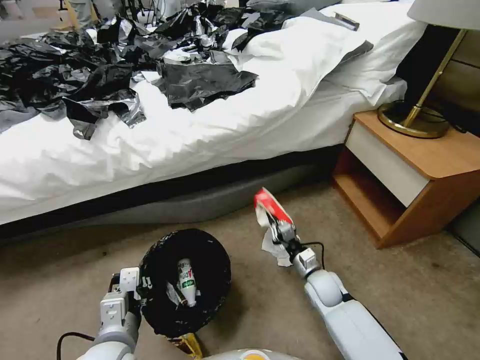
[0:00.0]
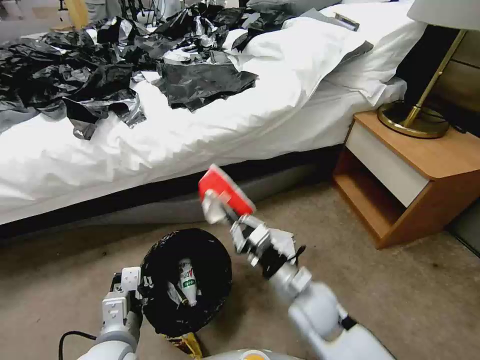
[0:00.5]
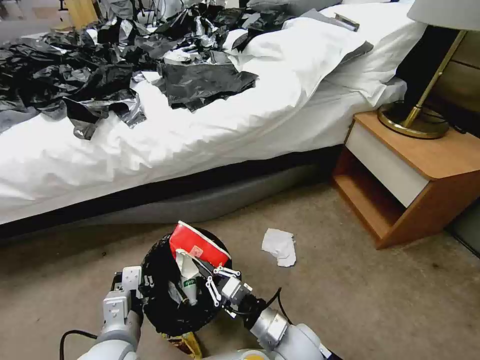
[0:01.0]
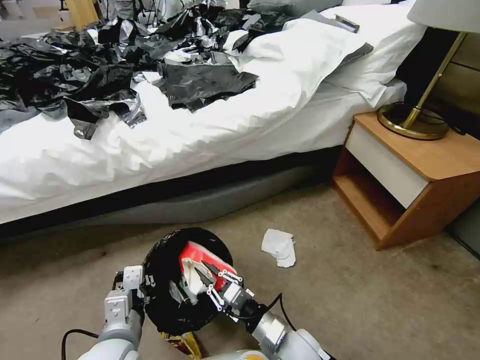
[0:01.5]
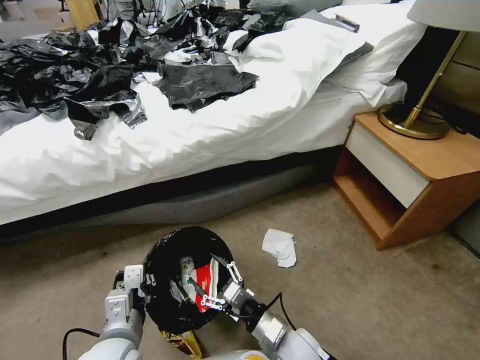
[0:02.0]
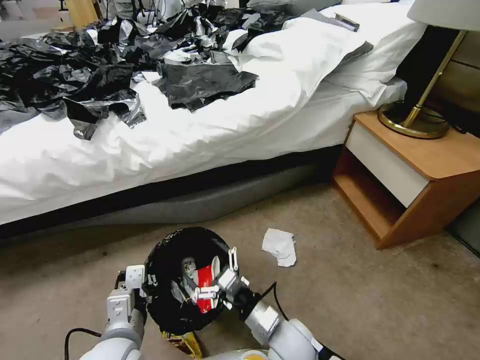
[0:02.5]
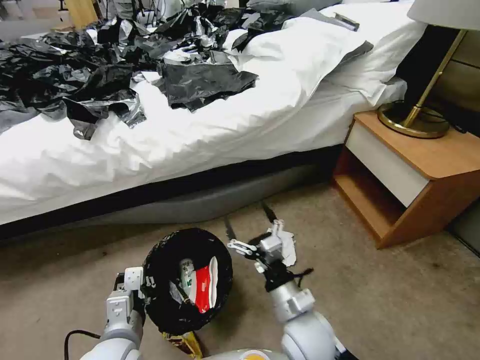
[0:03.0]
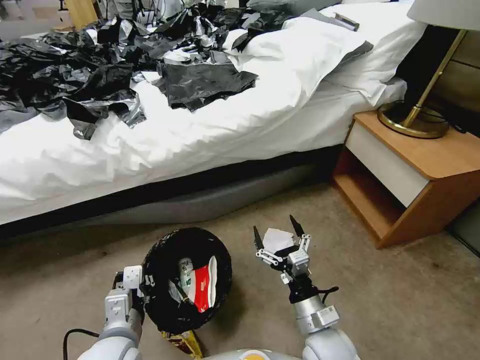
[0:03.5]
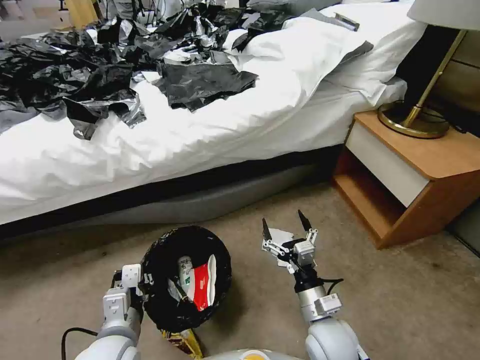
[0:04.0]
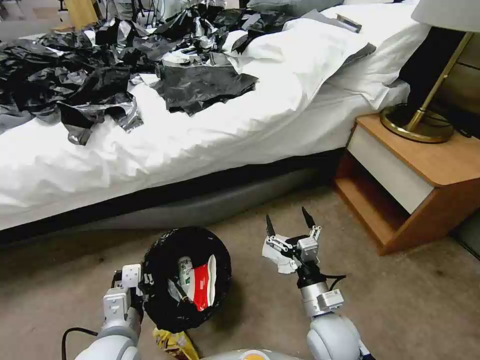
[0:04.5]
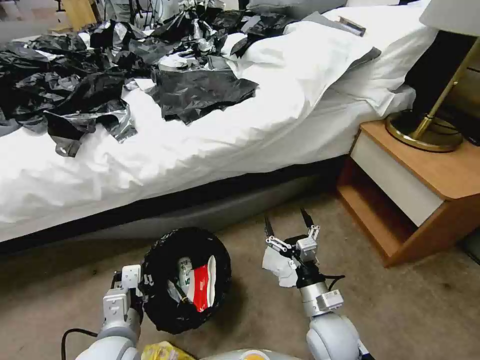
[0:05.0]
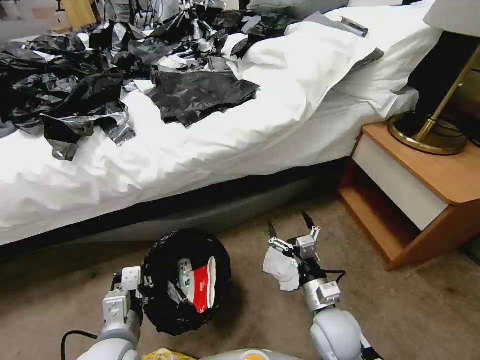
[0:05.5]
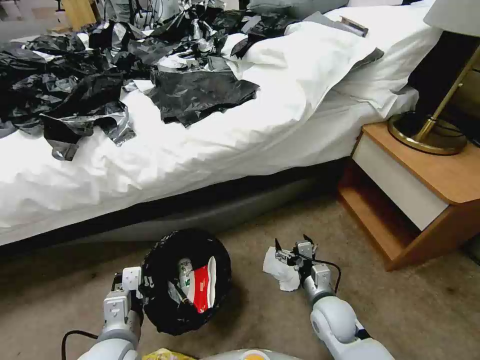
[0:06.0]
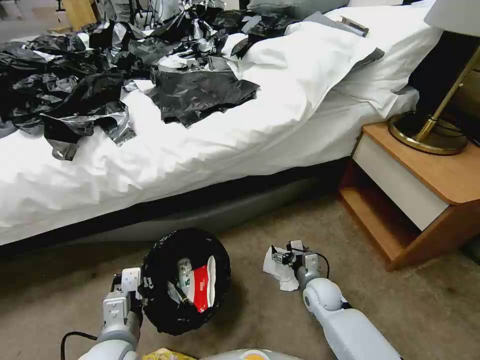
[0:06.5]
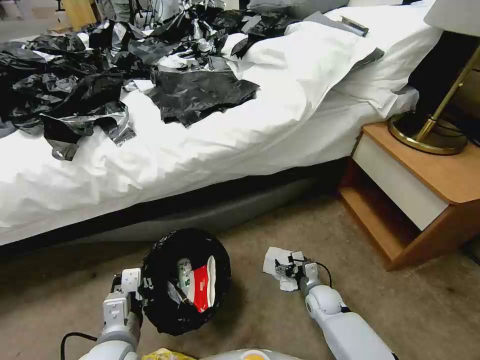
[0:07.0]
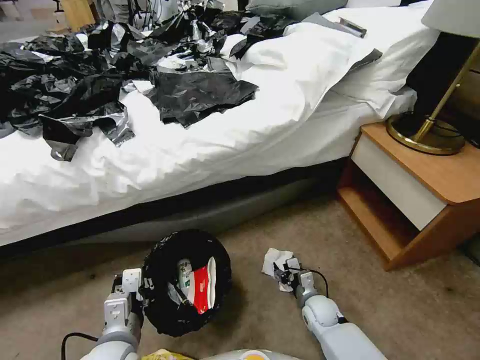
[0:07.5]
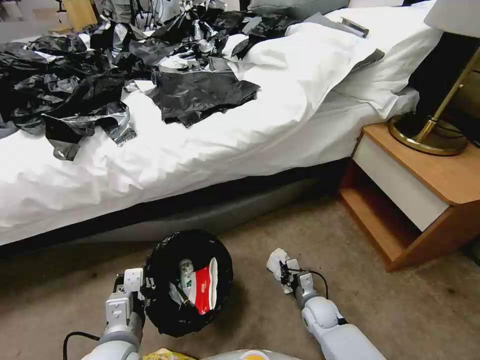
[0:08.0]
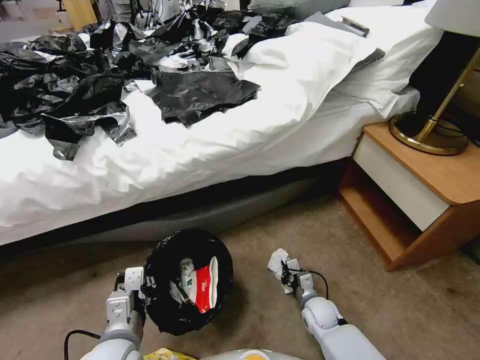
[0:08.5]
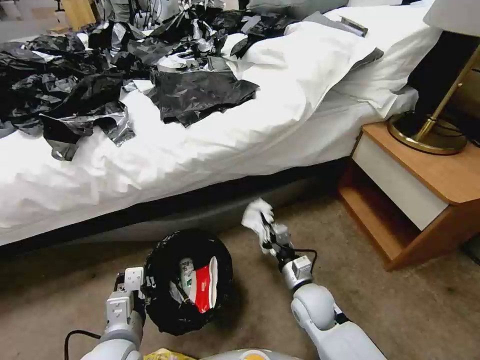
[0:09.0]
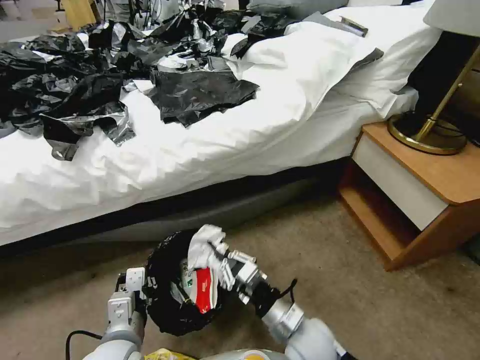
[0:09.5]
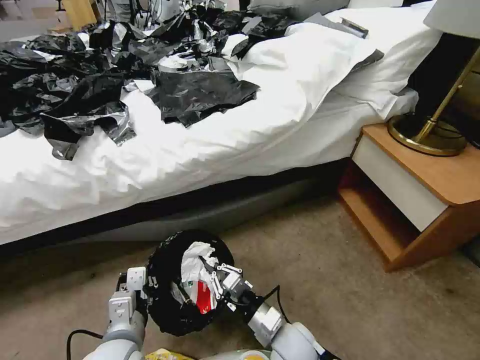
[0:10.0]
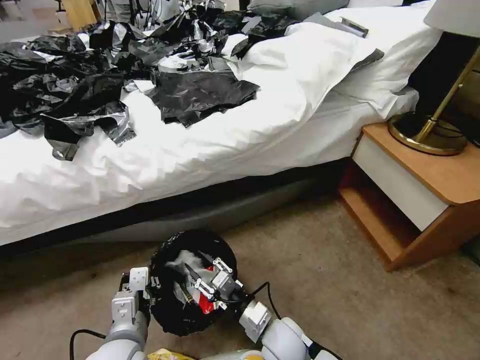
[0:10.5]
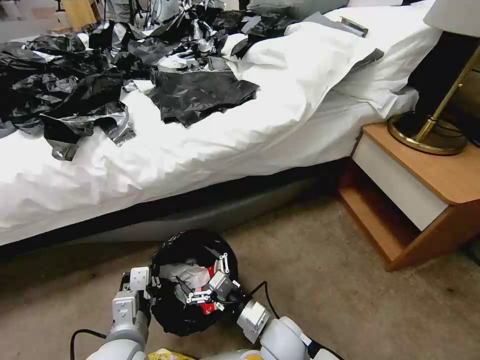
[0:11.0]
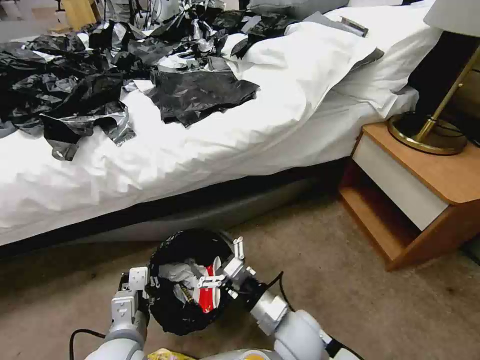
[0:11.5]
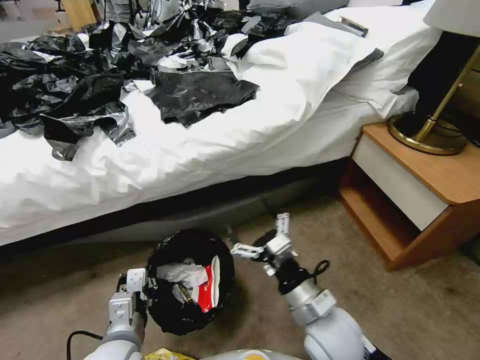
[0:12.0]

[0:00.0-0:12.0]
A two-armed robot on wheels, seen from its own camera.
Task of the whole recording: Pick up the trash bin, then pick up the garbage from the floor and place it into the trash bin.
0:00.0 to 0:02.0: The right gripper heads backward and to the left, covering roughly 20 cm, and opens.
0:02.0 to 0:04.0: The right gripper is displaced to the right by approximately 5 cm.
0:04.0 to 0:06.0: The right gripper travels downward and forward by some 10 cm.
0:06.0 to 0:08.0: The right gripper goes some 10 cm downward, and closes.
0:08.0 to 0:10.0: The right gripper goes some 20 cm upward, to the left and backward.
0:10.0 to 0:12.0: The right gripper shifts roughly 15 cm upward and to the right, and opens its fingers.

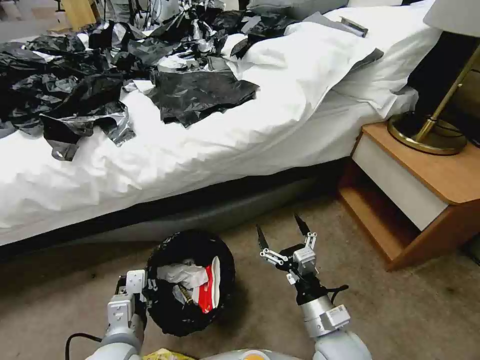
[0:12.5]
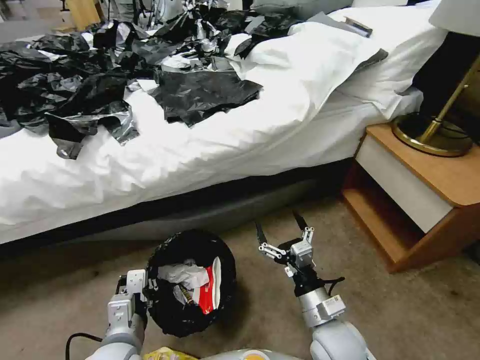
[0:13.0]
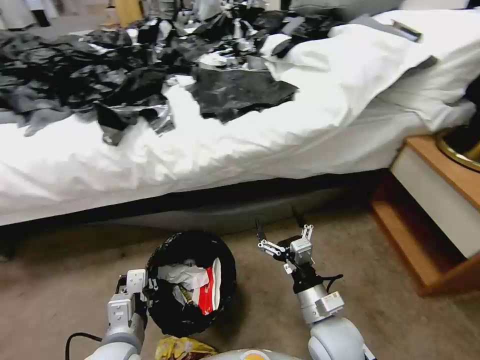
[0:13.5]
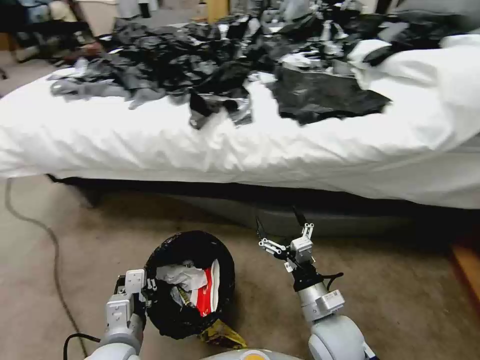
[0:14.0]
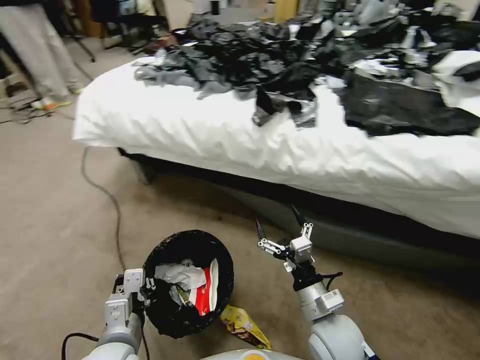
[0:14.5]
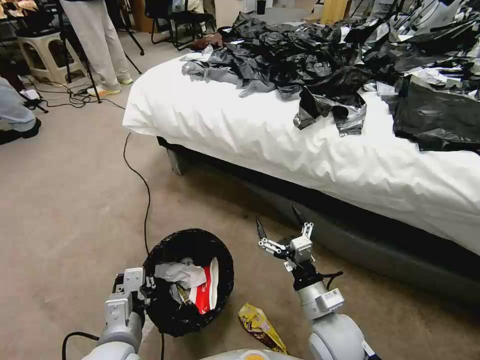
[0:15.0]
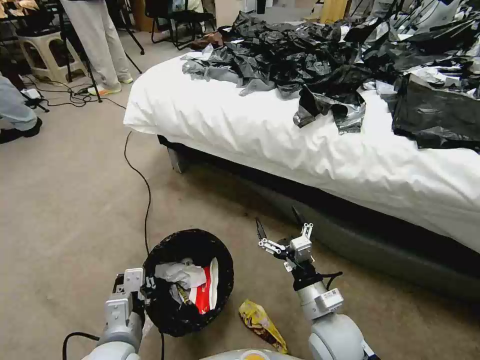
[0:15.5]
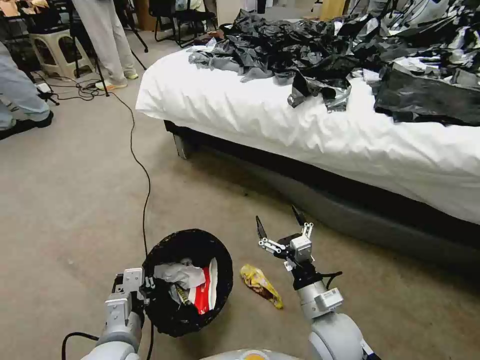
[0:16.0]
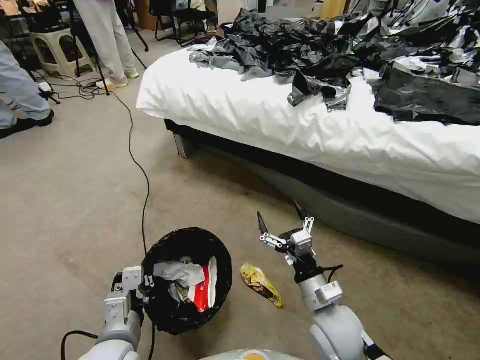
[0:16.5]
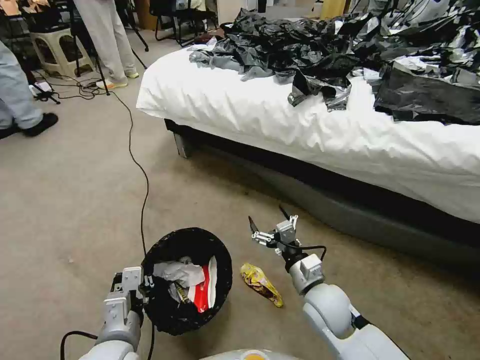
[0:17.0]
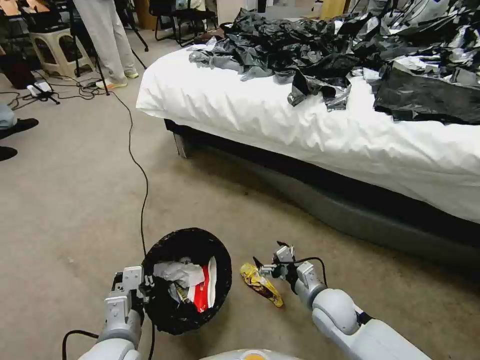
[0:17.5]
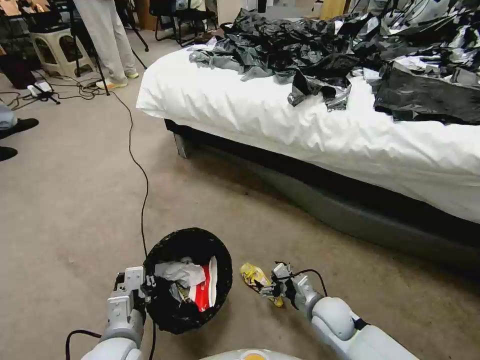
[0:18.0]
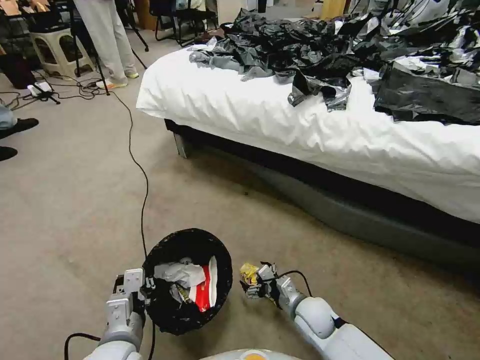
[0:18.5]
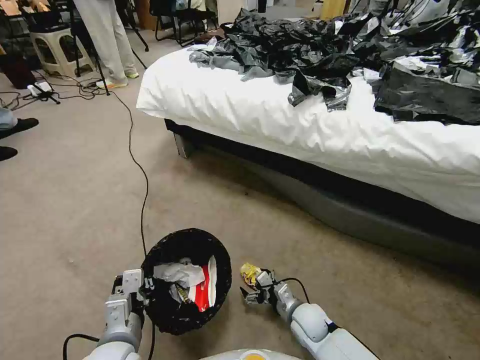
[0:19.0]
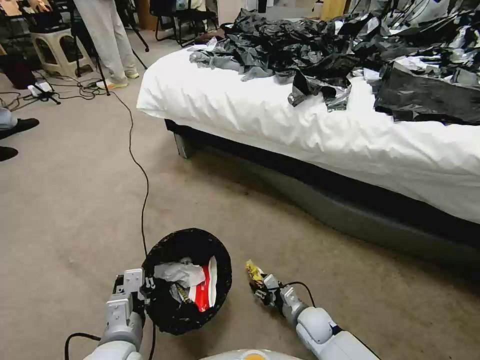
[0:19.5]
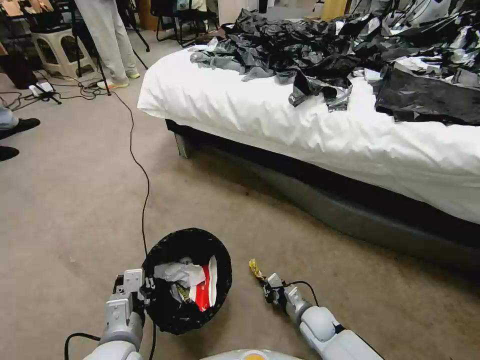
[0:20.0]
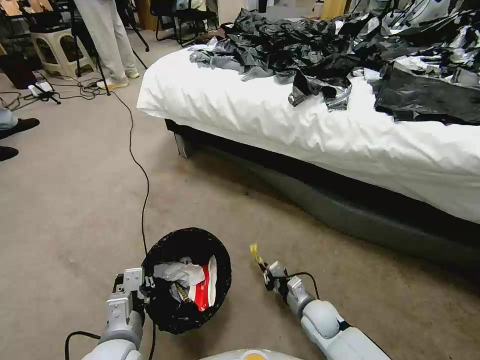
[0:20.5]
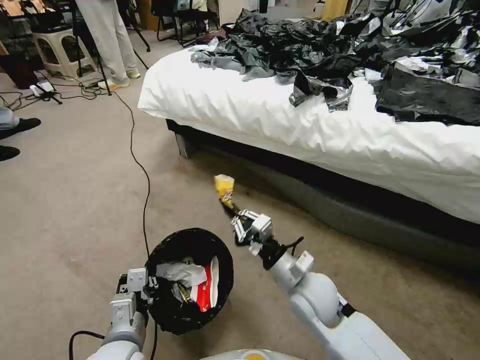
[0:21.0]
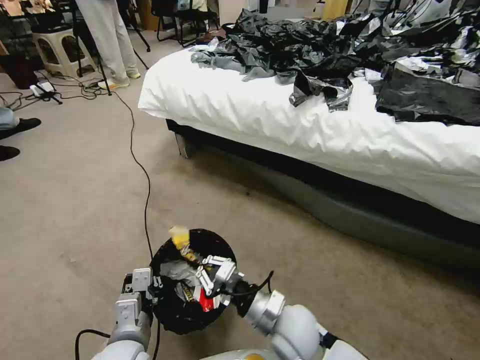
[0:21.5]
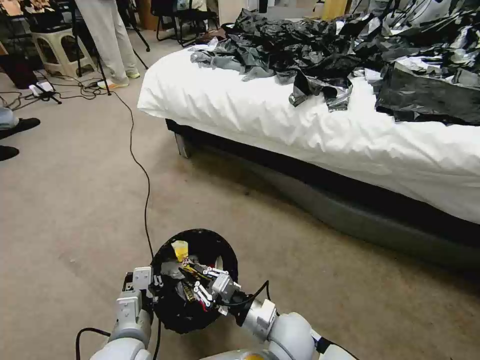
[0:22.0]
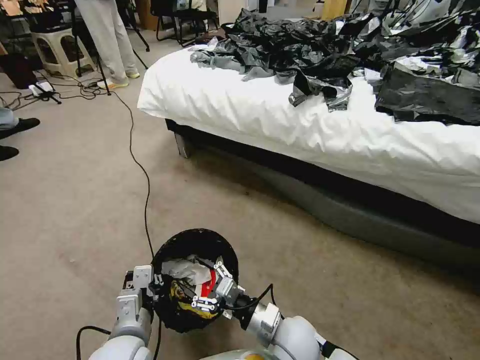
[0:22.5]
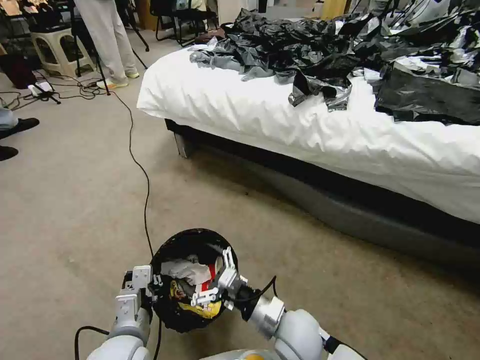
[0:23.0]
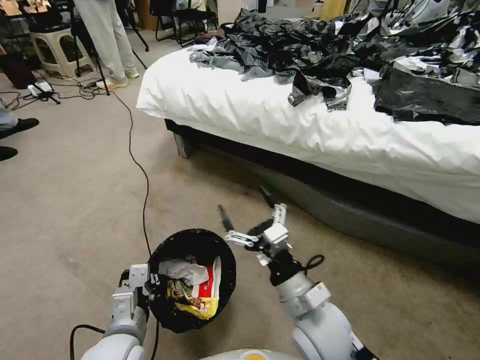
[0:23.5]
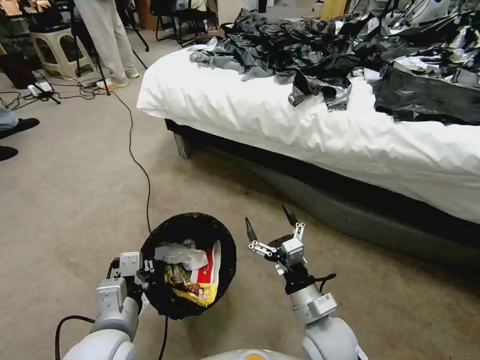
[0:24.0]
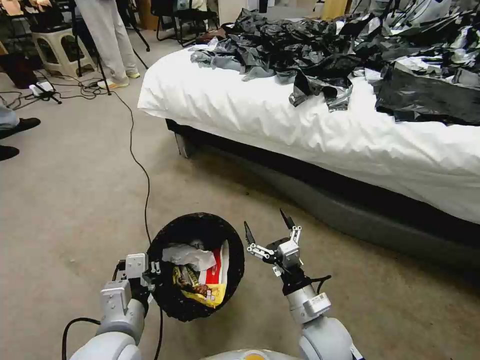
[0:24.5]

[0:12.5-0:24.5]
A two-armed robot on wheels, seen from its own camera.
Task of the whole recording: Pick up the trash bin, then pick up the garbage from the floor and place it into the trash bin.
0:16.5 to 0:18.5: The right gripper travels downward by some 15 cm.
0:18.5 to 0:20.5: The right gripper goes downward and returns, approximately 10 cm each way, and closes its fingers.
0:20.5 to 0:22.5: The right gripper shifts roughly 15 cm upward, to the left and backward, and opens up.
0:22.5 to 0:24.5: The left gripper moves upward, roughly 5 cm, while the right gripper heads to the right, covering roughly 5 cm, and opens up.

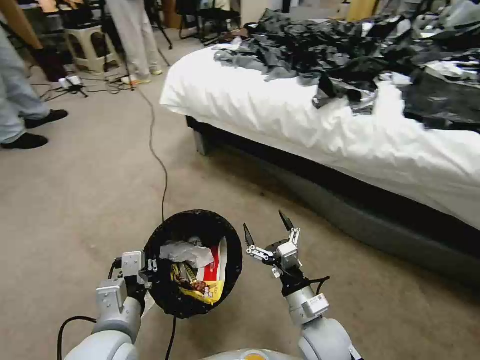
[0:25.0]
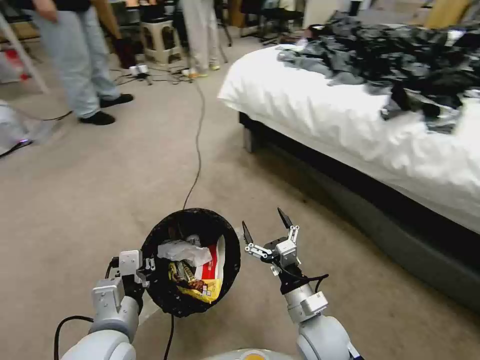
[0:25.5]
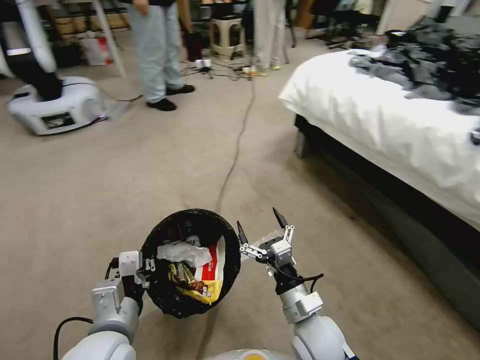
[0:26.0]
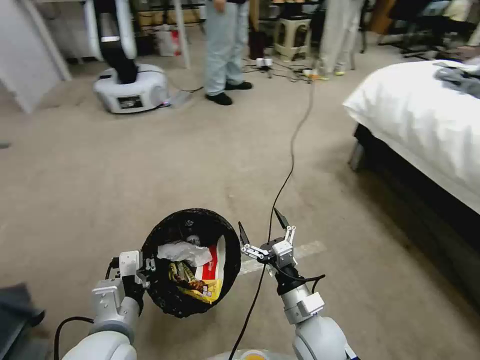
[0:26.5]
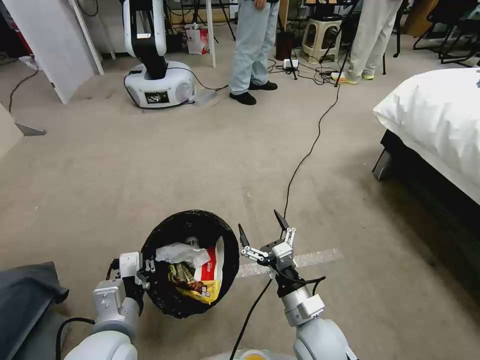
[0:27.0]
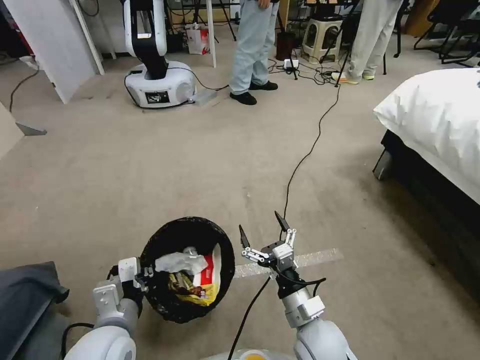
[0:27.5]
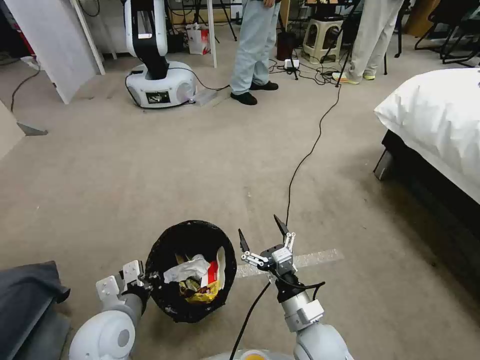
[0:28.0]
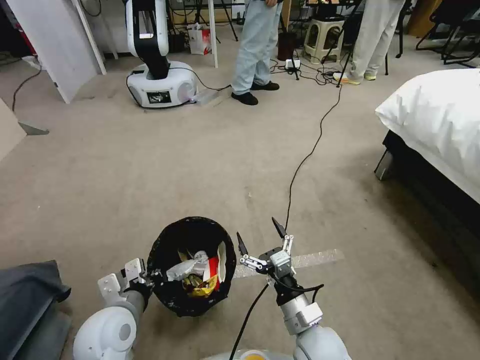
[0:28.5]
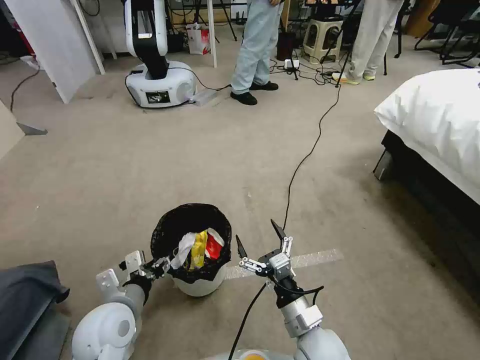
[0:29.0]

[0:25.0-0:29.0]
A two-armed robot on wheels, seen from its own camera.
Task of the whole recording: Pick up the trash bin, then pick up the garbage from the floor and place it into the trash bin.
0:27.0 to 0:29.0: The left gripper heads forward and downward, covering roughly 5 cm, and opens.
